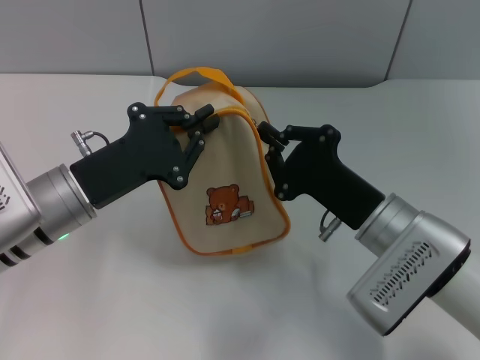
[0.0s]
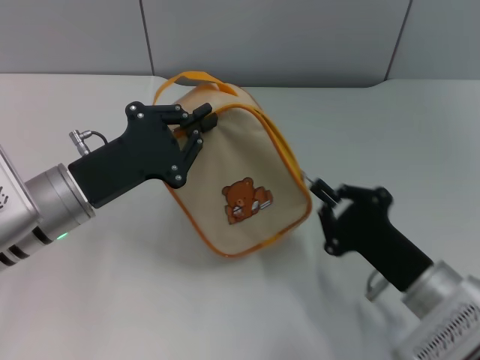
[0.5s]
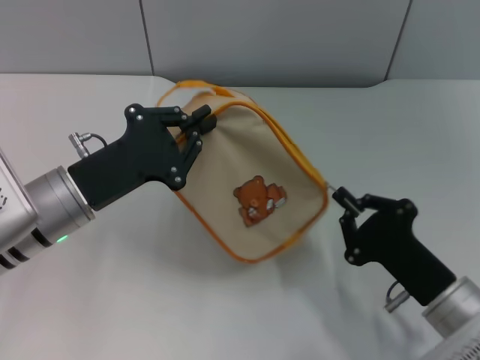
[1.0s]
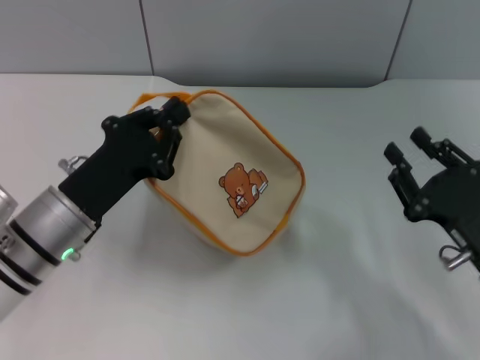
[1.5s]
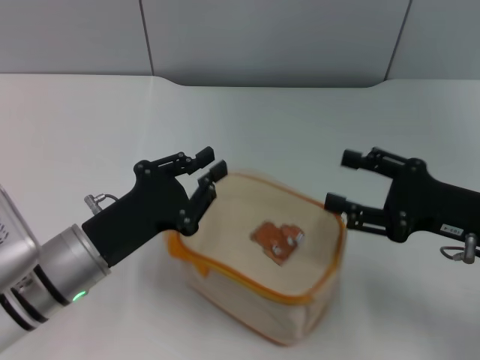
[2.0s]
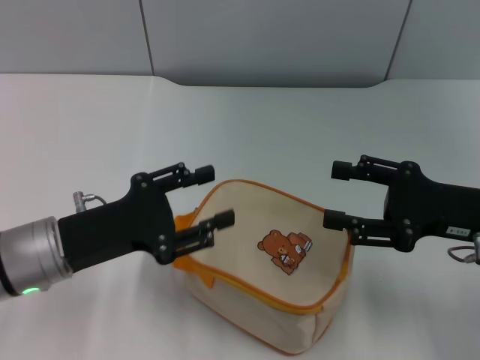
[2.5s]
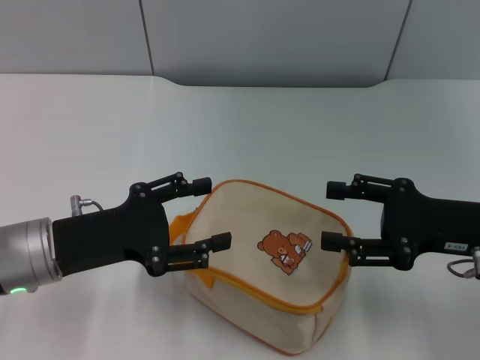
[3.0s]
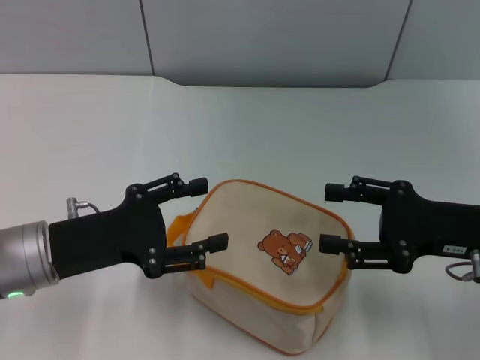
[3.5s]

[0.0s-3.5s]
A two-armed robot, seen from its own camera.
Step, 1.5s to 2.0s: Place the bag on the table with left gripper.
0.0s to 2.0s: The left gripper ends up some 5 cm from where it was, while the right gripper is displaced to the right by approximately 10 cm, and opens.
2.0s to 3.5s: The left gripper moves approximately 5 cm, and opens its fingers.
